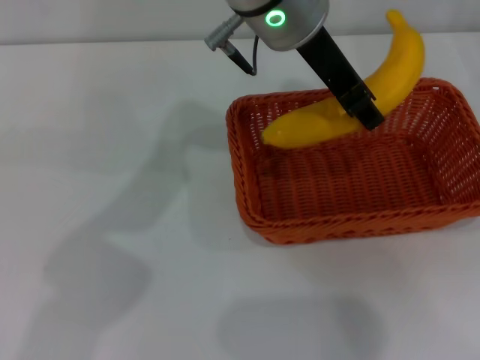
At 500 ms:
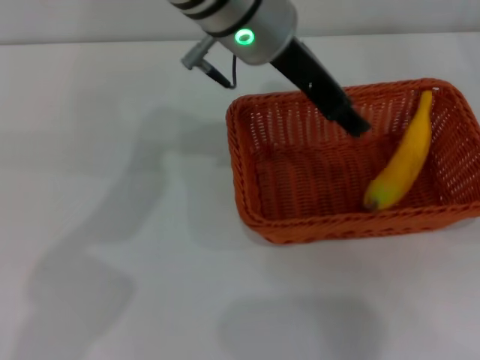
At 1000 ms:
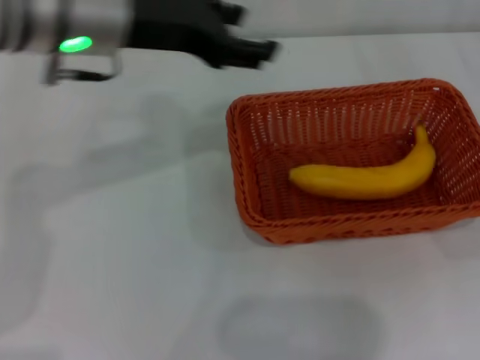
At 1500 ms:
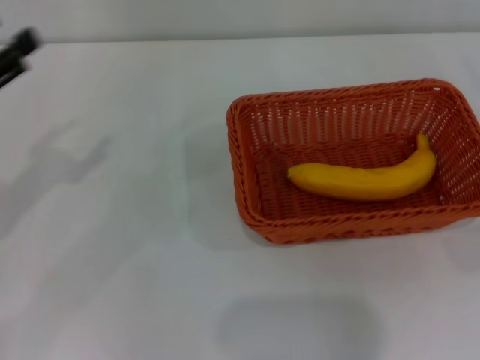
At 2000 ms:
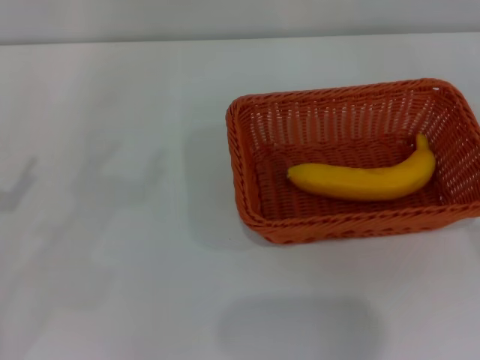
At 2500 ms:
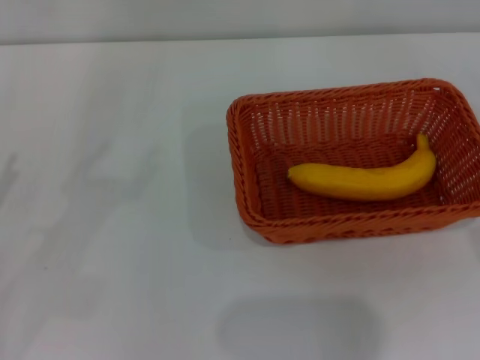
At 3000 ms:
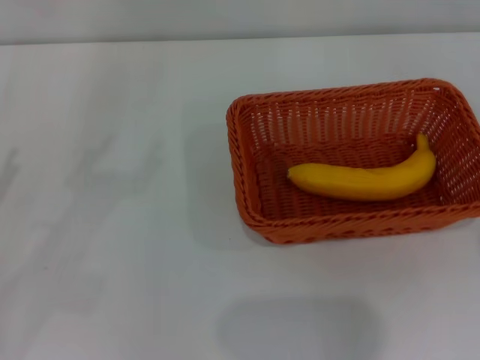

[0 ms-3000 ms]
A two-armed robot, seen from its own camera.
0 ms to 1500 ms: The right gripper opens up, while the left gripper is displaced to the left by some 35 cm, and opens up.
1500 ms to 3000 ms: The left gripper shifts about 10 cm downward and backward.

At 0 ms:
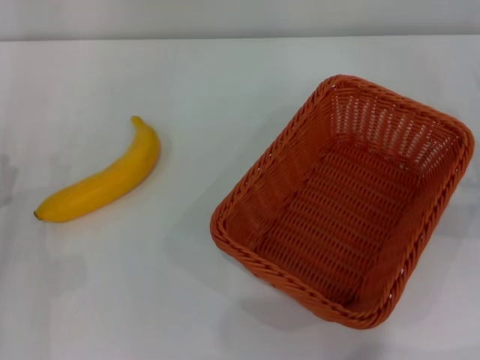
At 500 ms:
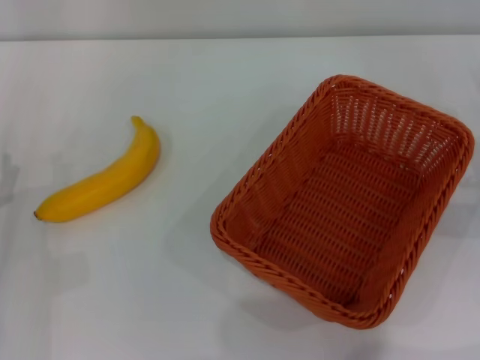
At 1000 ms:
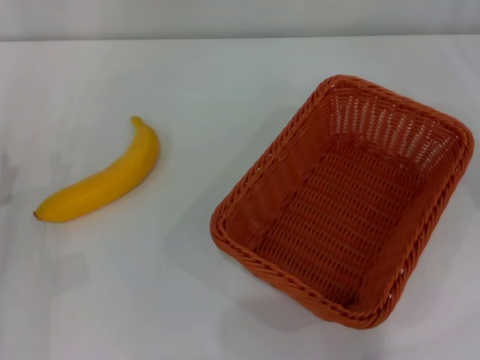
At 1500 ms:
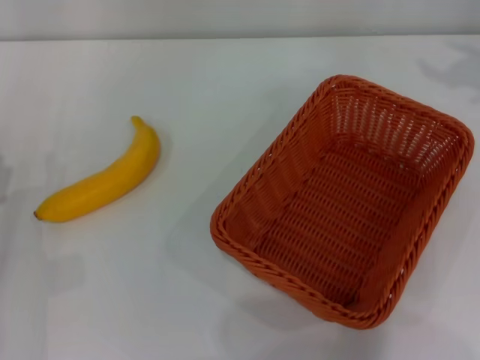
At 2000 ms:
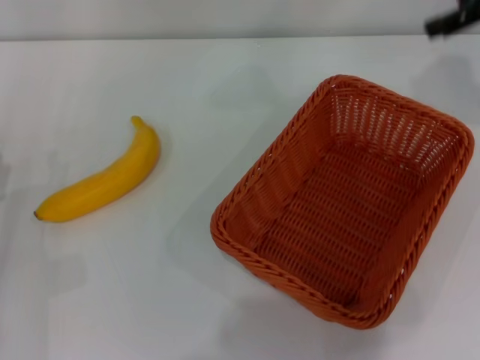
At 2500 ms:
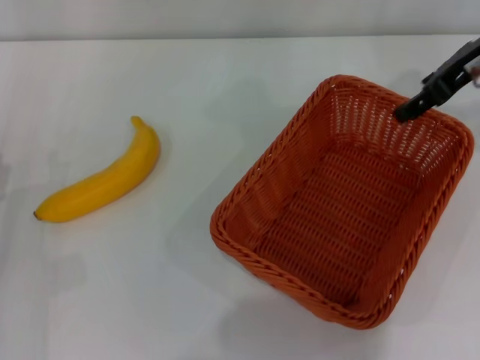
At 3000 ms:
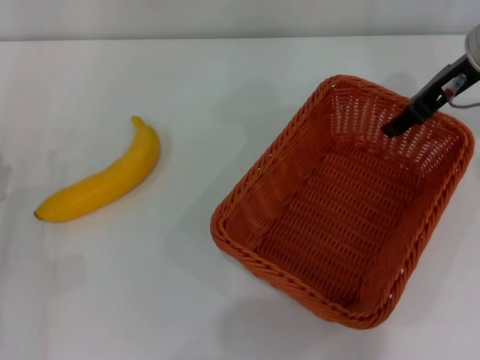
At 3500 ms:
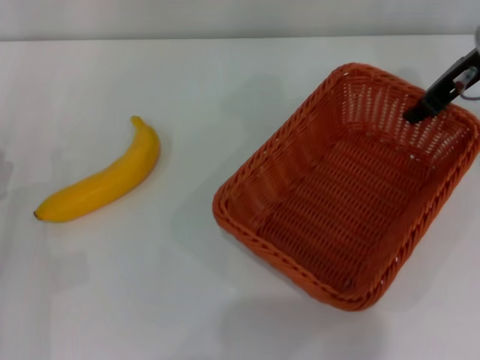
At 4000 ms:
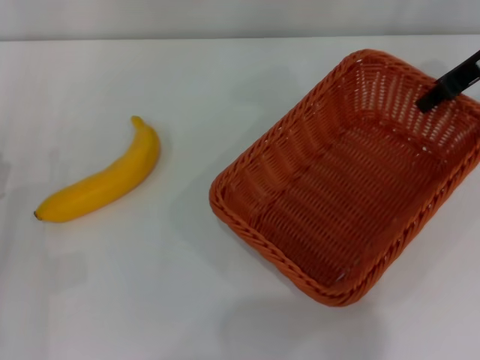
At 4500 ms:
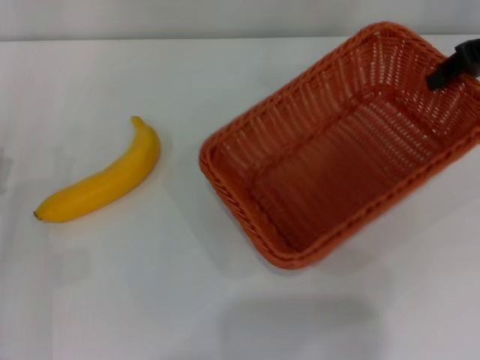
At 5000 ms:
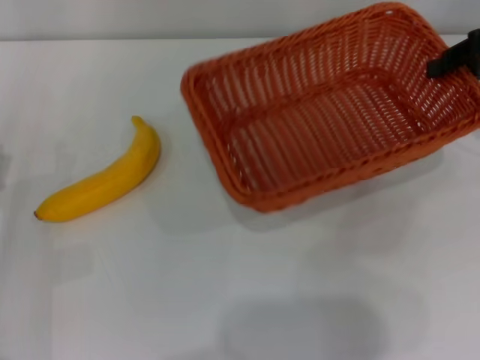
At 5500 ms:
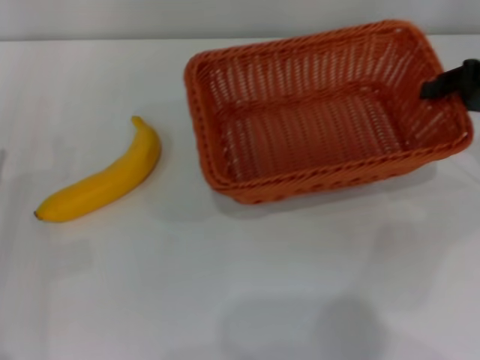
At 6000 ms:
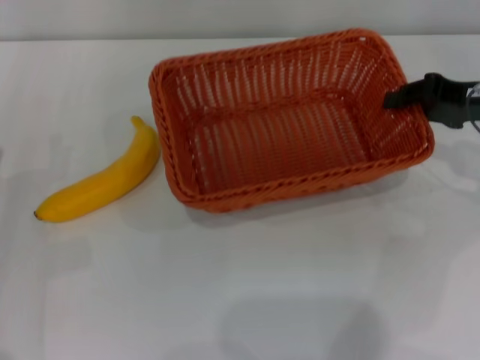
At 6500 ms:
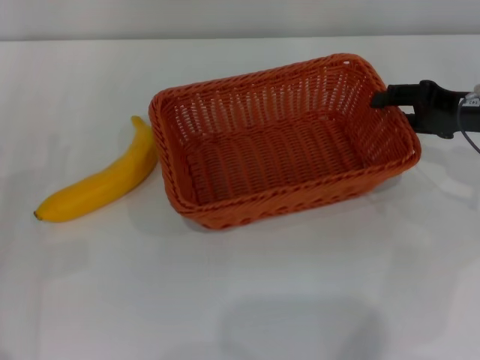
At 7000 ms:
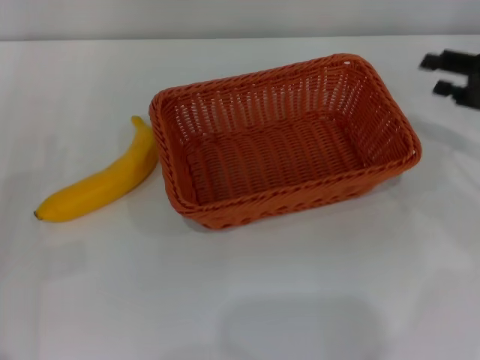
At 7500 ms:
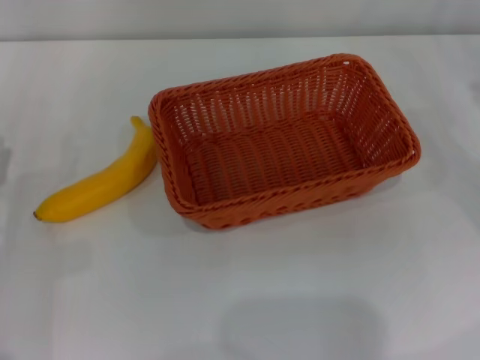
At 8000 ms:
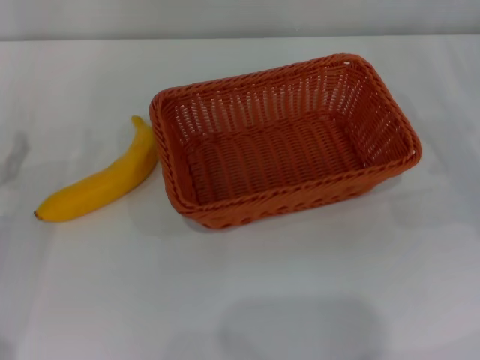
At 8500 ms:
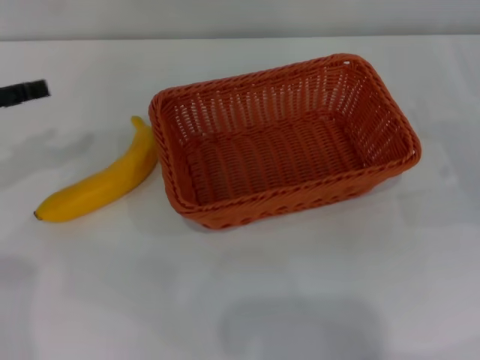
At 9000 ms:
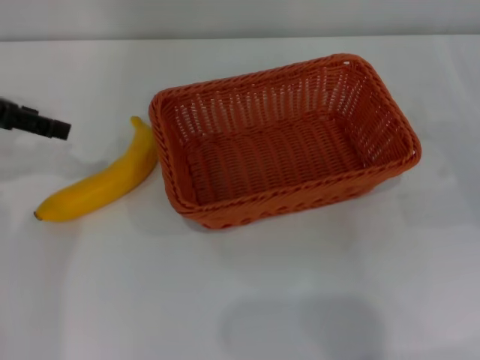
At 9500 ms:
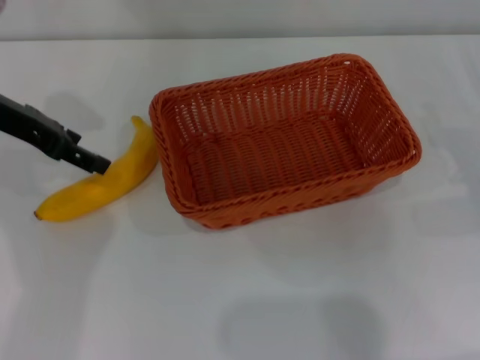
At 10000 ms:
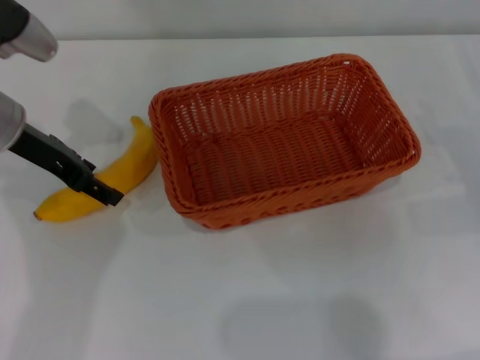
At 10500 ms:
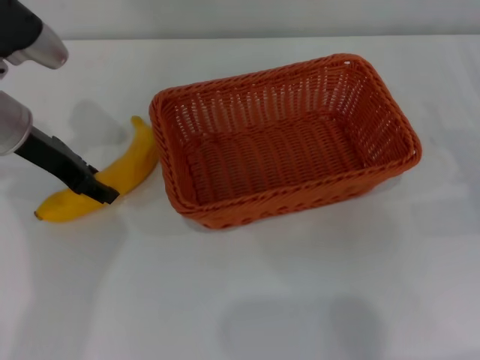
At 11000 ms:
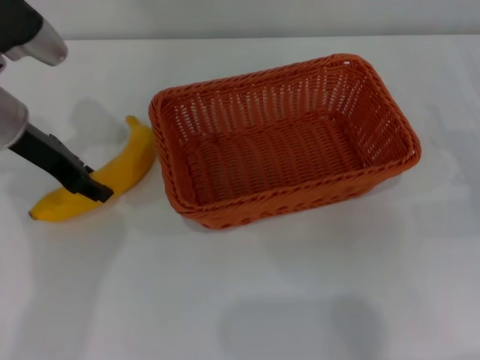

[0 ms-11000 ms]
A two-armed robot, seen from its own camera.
Step, 0 ms to 4000 ms: Pick up the light basket with the right gripper.
Step, 4500 ms to 7000 ms: Place the light basket in the center of view with the right gripper.
0 ms to 2000 ms: The right gripper shifts approximately 25 cm upward and forward.
2000 ms to 3500 ms: The right gripper travels downward and to the left by some 10 cm, and closes up.
3500 ms to 5500 ms: The right gripper goes approximately 10 cm to the right and backward.
5500 ms to 7500 ms: The right gripper is displaced downward and to the right by some 10 cm, and opens its fingers.
7500 ms to 9000 ms: The left gripper travels upward and forward by about 20 cm.
9000 ms to 11000 ms: The left gripper moves to the right and downward, some 10 cm, and closes.

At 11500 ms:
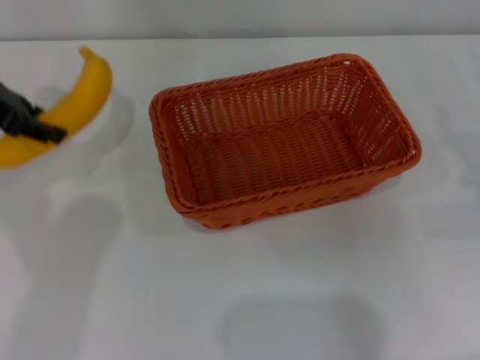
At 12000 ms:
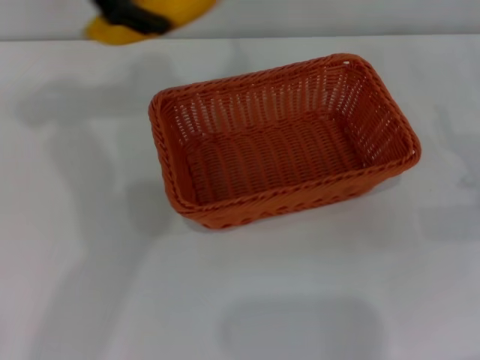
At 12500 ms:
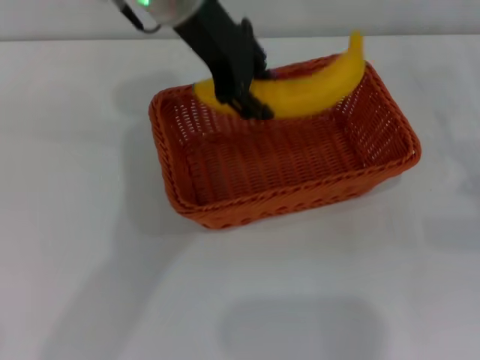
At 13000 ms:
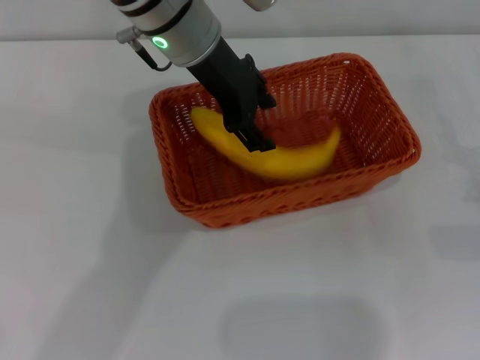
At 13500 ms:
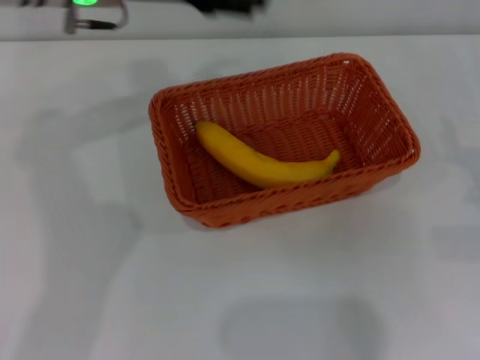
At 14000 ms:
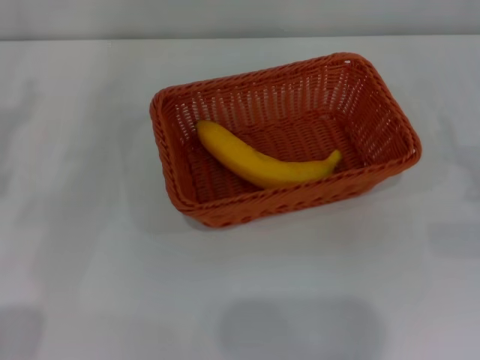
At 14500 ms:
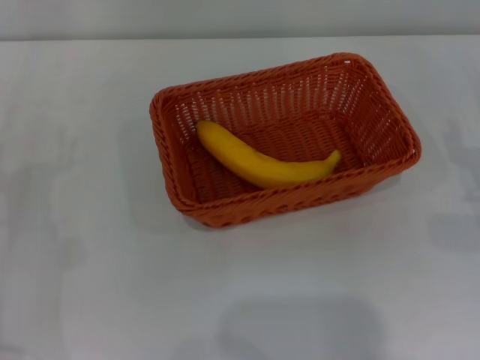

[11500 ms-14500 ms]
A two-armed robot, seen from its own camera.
Step, 11500 ms to 13000 ms: Place the banana into the light basket with the left gripper.
11500 ms to 13000 ms: The left gripper shifts some 25 cm to the right.
13000 ms to 14500 ms: The left gripper travels to the left, downward and backward by approximately 35 cm, and opens up.
